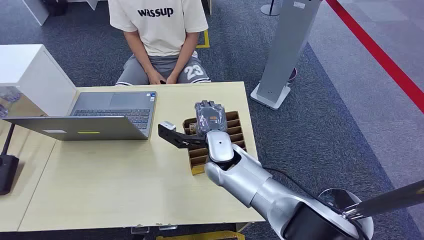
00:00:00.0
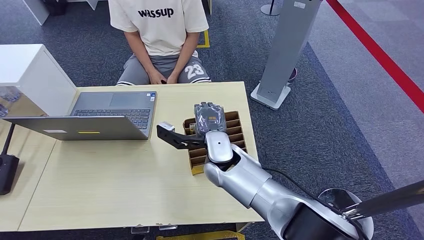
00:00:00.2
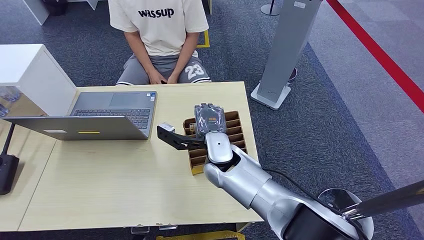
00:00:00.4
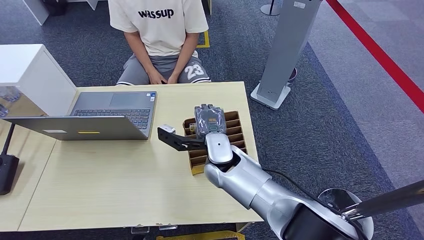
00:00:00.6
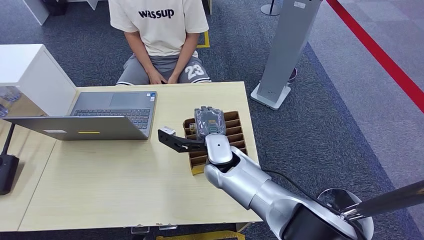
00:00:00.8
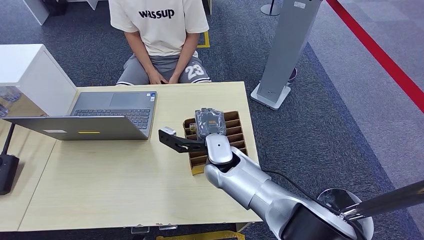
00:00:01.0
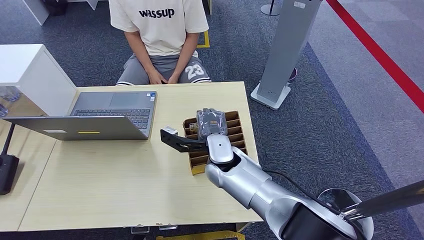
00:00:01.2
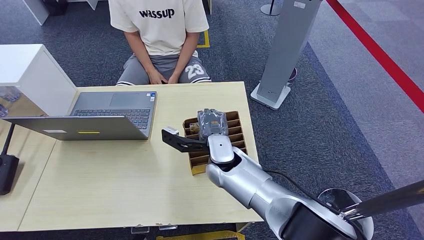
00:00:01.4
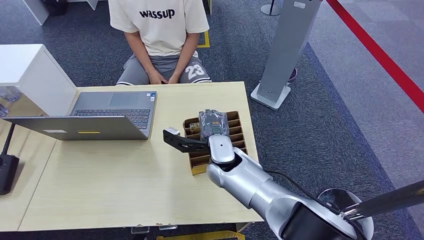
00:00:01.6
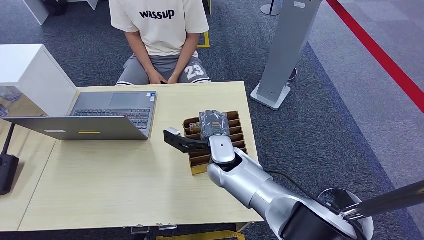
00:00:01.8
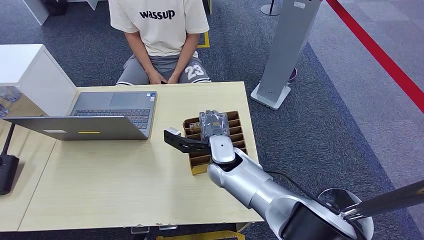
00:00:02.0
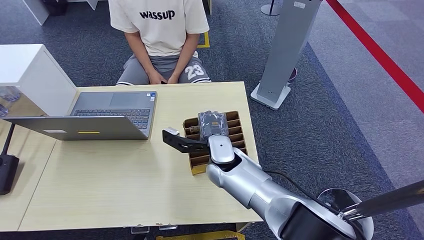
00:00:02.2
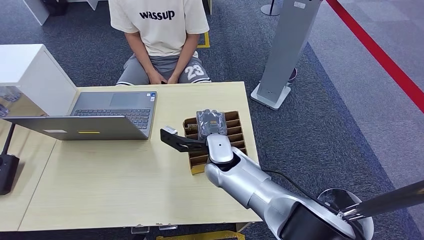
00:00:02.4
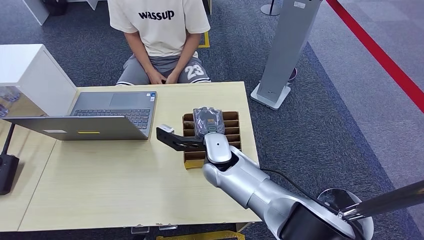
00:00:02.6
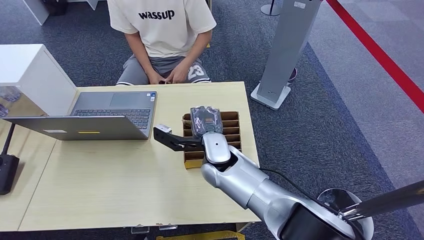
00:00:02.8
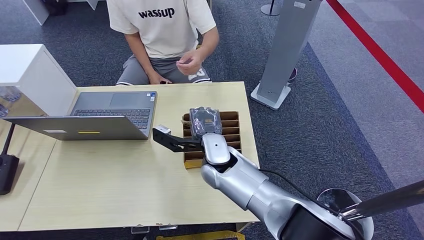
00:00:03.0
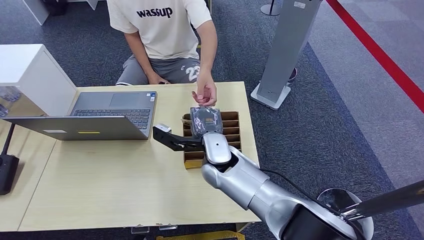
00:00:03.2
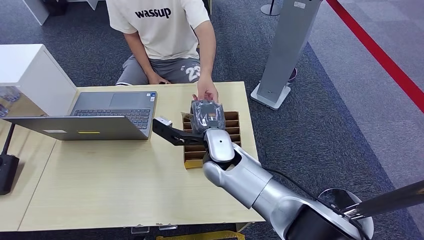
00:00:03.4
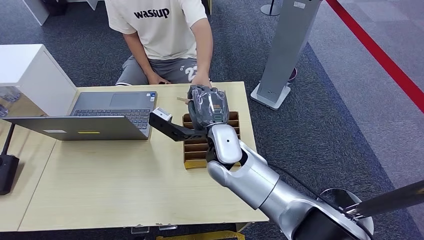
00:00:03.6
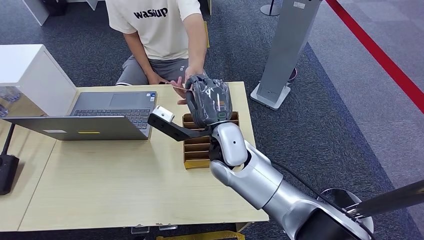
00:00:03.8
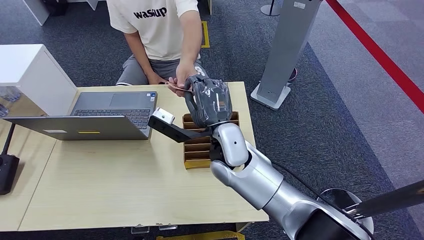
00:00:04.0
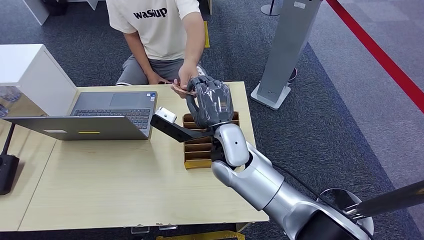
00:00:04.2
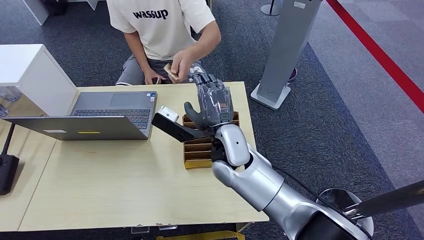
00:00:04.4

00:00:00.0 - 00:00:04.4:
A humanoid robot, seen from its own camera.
Step, 00:00:00.0 - 00:00:02.4: Pick up the room card from the card holder.
Step, 00:00:03.0 - 00:00:04.4: Hand the room card to the target.
00:00:01.4 - 00:00:03.0: There are only small adjustments of the hands.
00:00:03.0 - 00:00:04.4: The right hand is displaced upward by approximately 5 cm.
